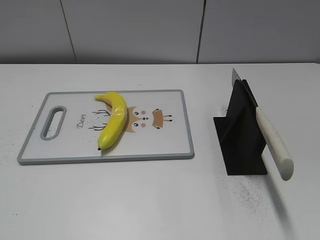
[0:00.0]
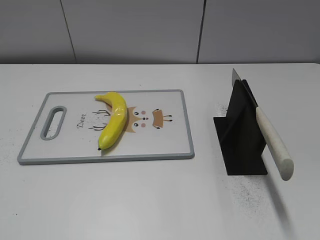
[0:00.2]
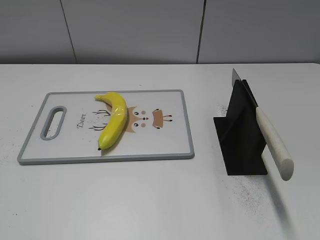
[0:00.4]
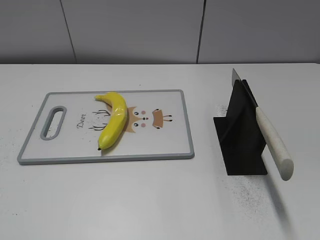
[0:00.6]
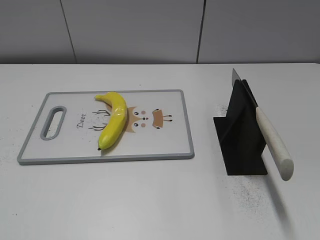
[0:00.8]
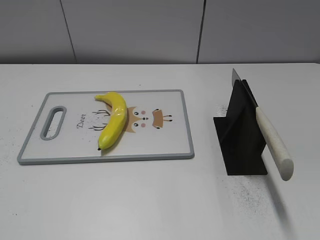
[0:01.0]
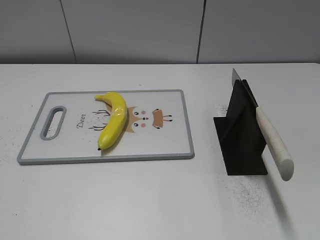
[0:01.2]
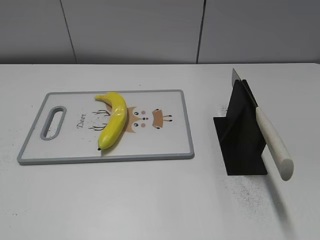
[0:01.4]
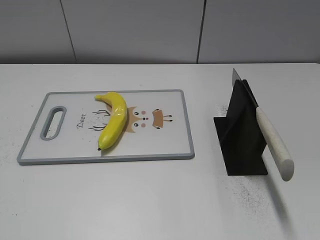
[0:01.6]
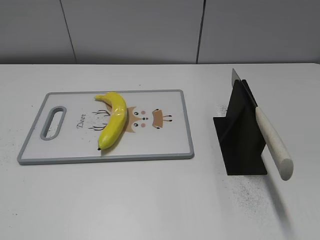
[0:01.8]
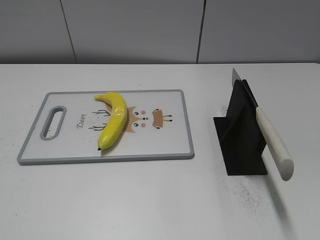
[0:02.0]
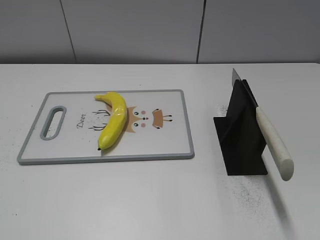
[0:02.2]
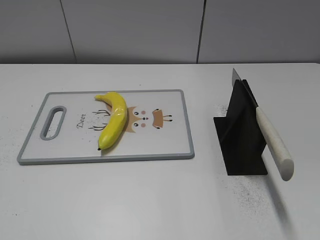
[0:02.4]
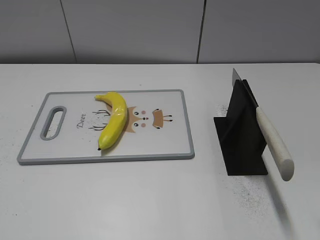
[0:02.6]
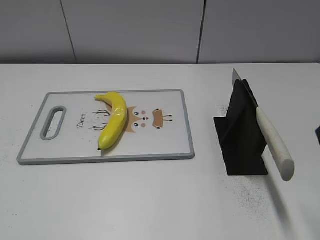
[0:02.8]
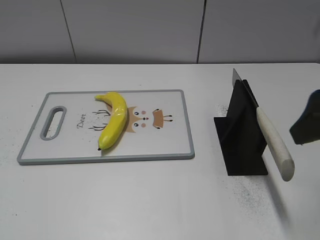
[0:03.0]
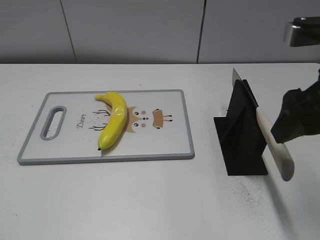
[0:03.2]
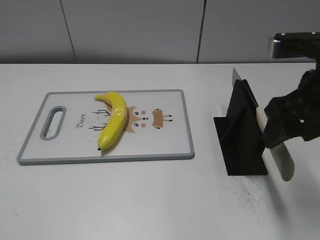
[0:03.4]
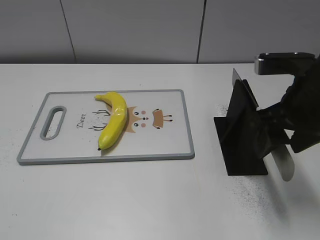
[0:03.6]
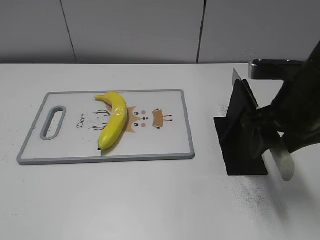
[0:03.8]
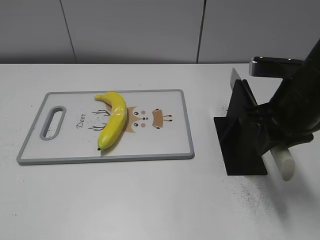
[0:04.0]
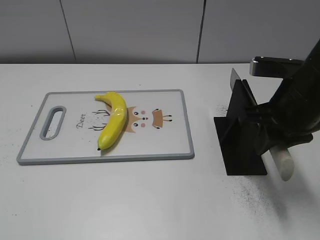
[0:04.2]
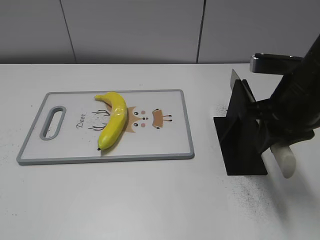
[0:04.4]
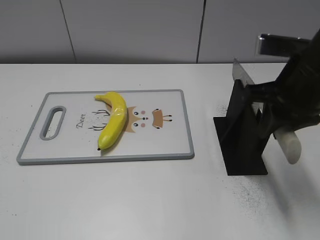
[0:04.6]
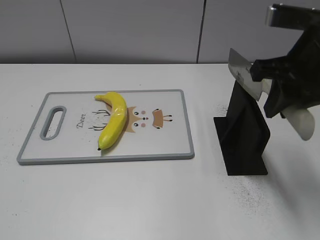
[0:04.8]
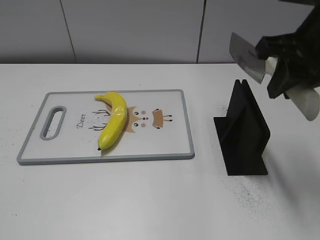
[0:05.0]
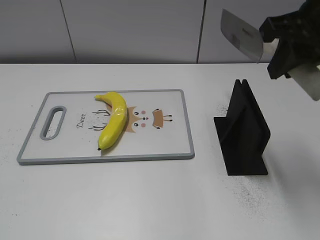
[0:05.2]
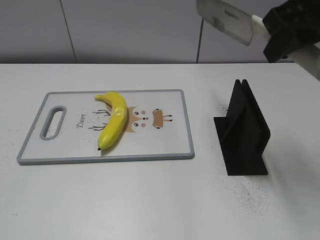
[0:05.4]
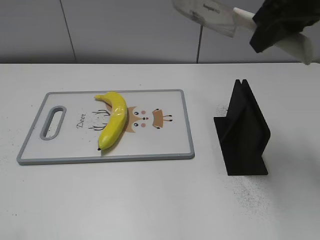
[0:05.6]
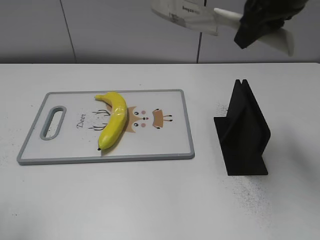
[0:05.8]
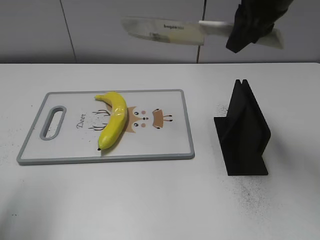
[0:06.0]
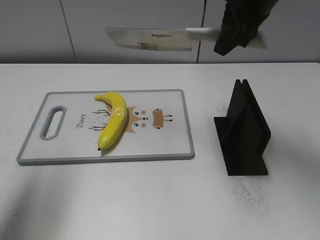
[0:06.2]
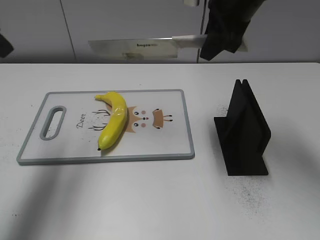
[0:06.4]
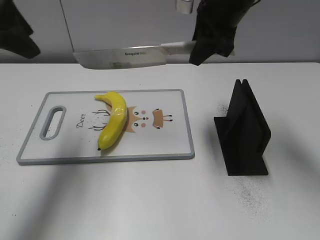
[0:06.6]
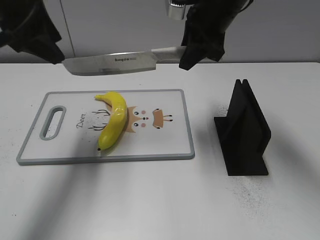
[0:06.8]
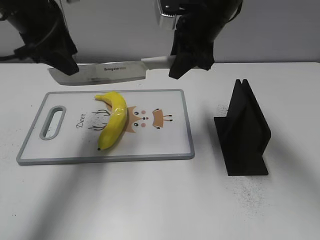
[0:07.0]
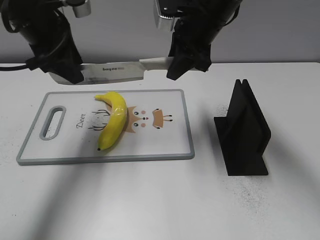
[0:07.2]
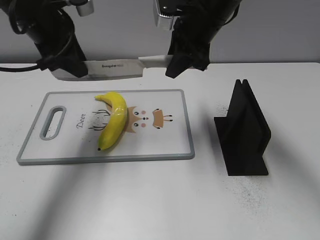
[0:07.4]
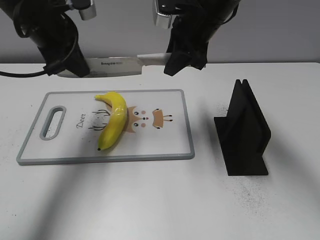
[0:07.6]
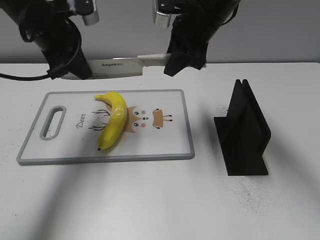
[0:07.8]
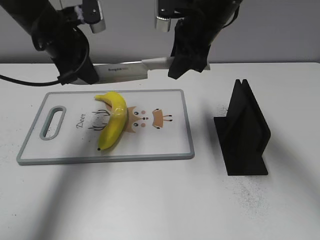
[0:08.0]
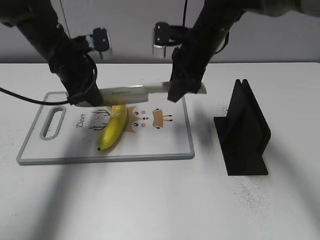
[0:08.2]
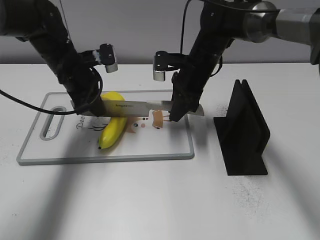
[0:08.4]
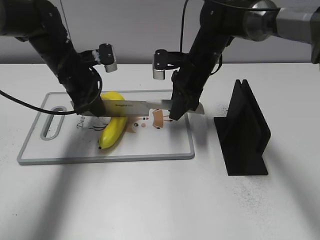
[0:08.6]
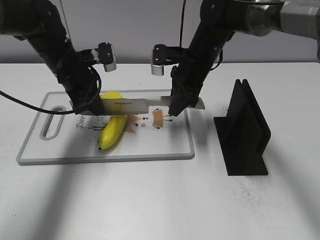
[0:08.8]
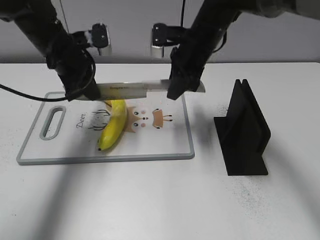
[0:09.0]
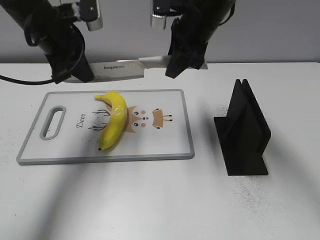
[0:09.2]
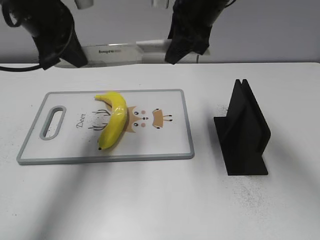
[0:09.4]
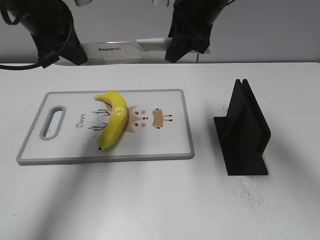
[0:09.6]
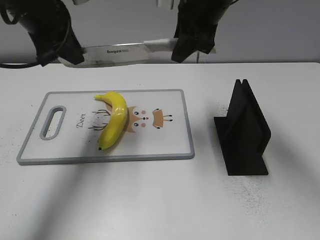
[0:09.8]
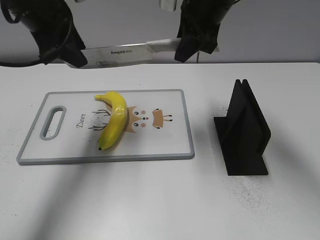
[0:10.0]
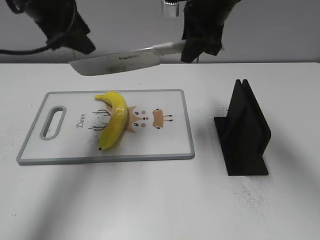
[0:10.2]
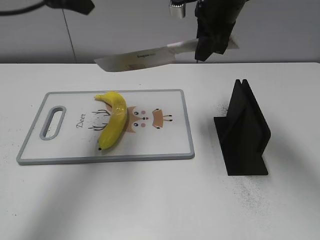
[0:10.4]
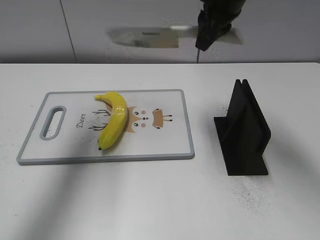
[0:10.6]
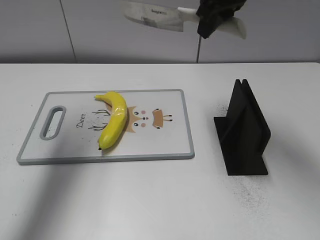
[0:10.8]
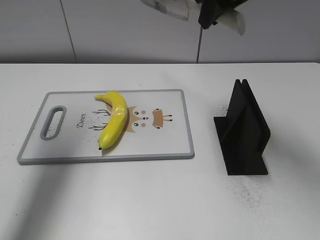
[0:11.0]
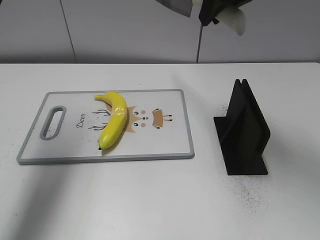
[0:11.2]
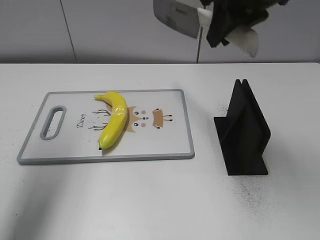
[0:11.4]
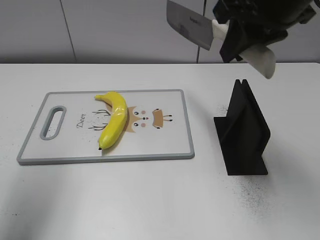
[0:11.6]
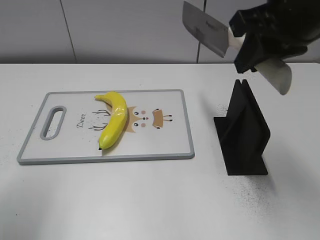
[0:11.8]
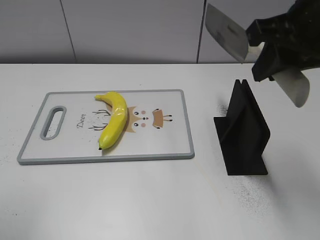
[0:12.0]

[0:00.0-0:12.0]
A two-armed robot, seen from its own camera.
Task of the whole recording: cut plastic banana.
Step, 0:00.0 to 0:05.0: Grab the knife handle with your right hand.
Step, 0:05.2 to 0:09.6: Lift the knife with your right hand.
Step, 0:09.8 to 0:10.4: Cut the banana with your right hand.
Step, 0:10.6 to 0:11.6: Lift the knife with your right hand.
0:01.6 to 0:03.0: The right gripper moves forward, about 20 cm.
0:03.0 to 0:04.4: The right gripper is displaced downward and forward by approximately 10 cm, and closes up.
0:04.4 to 0:06.0: The right gripper travels upward and forward by roughly 15 cm. Meanwhile the left gripper goes approximately 15 cm forward.
0:06.0 to 0:07.6: The right gripper goes roughly 15 cm downward, to the left and forward. Meanwhile the left gripper travels forward and to the right by some 25 cm, and closes its fingers.
0:07.6 to 0:09.0: The grippers both shift downward by about 5 cm.
0:09.0 to 0:10.4: The right gripper travels upward by some 10 cm; the left gripper is displaced upward by approximately 15 cm, and opens its fingers.
0:10.4 to 0:12.0: The left gripper shifts roughly 25 cm backward and to the left, while the right gripper is displaced backward and to the right by roughly 20 cm.

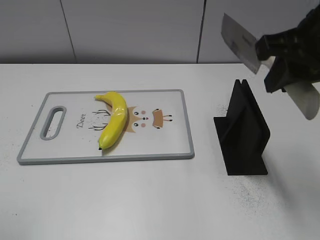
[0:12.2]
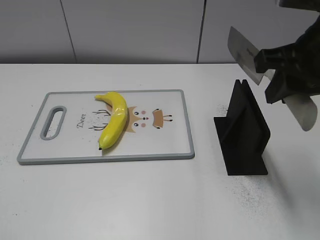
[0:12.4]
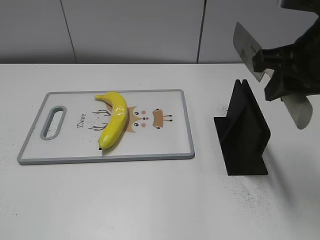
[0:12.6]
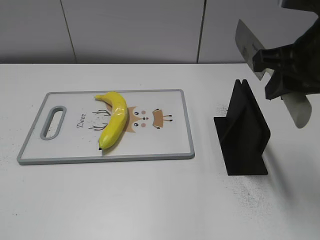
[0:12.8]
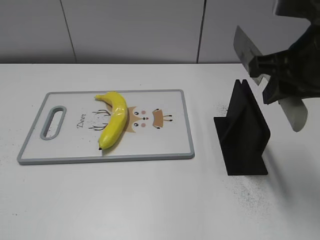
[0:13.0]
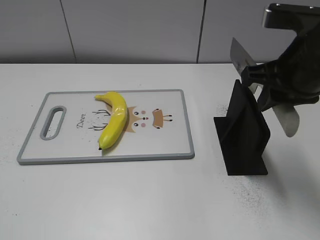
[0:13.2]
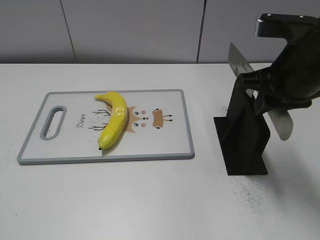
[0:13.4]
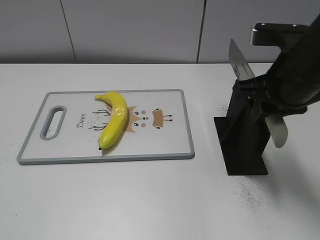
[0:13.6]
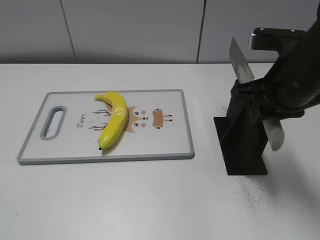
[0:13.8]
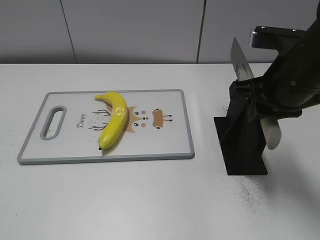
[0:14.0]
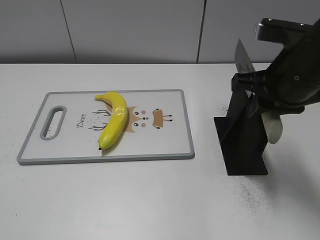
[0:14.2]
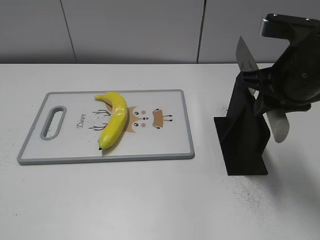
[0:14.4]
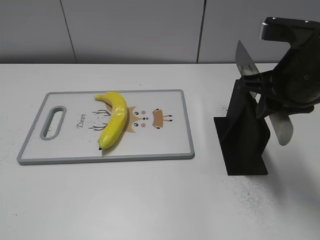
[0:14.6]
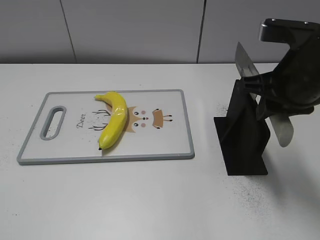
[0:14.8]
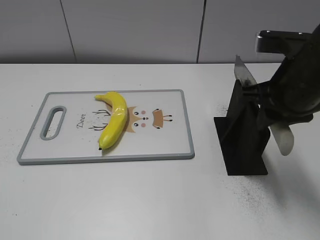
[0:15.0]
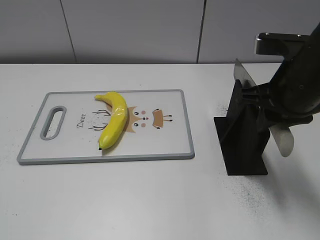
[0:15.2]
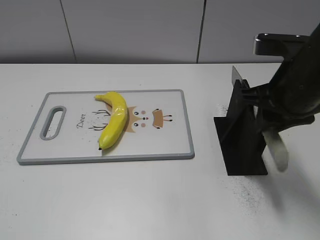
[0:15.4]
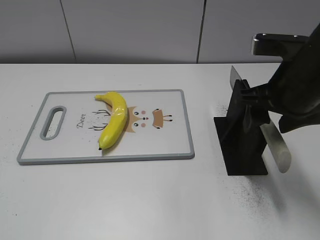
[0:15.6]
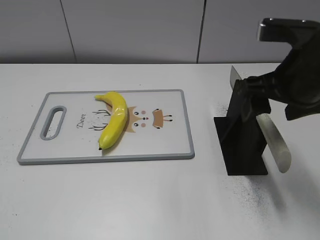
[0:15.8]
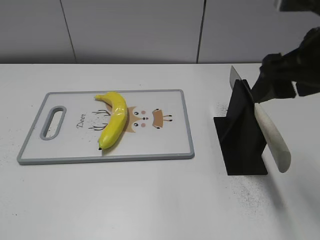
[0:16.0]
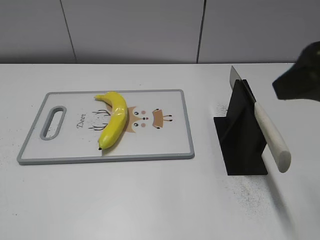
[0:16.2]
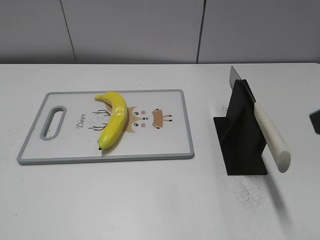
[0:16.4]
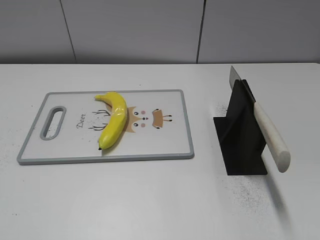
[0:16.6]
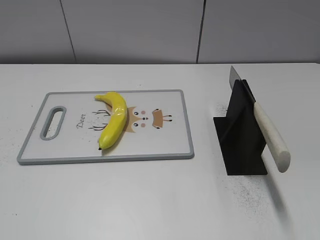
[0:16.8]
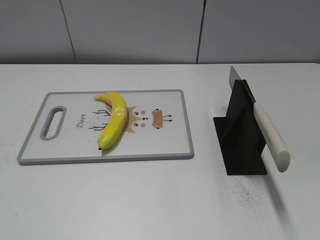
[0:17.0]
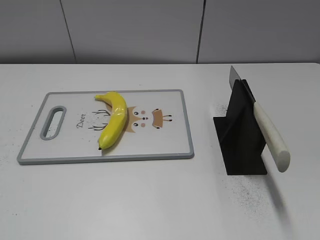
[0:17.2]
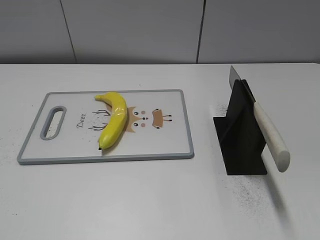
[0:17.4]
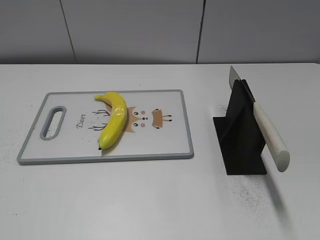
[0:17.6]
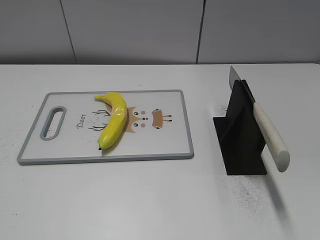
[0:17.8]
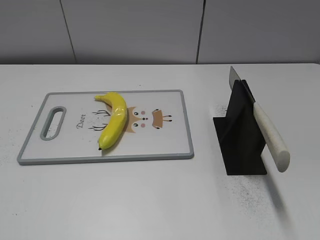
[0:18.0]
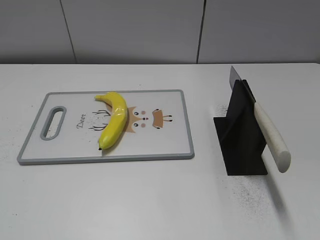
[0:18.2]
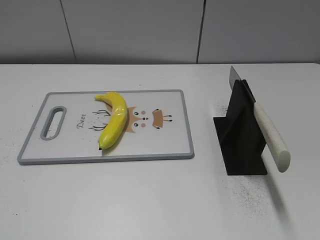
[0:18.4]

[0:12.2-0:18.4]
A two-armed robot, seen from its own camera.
Task of the whole recording: cut plastic banana.
Step, 0:12.2 to 0:18.4: Place the knife on the storage rack with your right hand.
0:12.2 to 0:13.8: The right gripper travels downward by approximately 10 cm.
0:13.8 to 0:15.4: The grippers make only small movements.
0:15.4 to 0:16.8: The right gripper moves backward and to the right, about 20 cm, and opens.

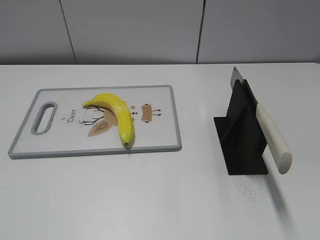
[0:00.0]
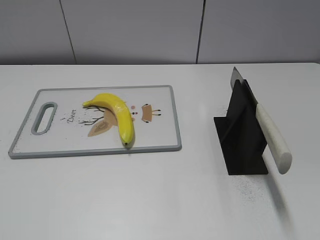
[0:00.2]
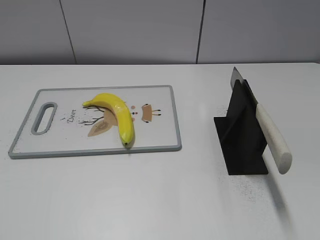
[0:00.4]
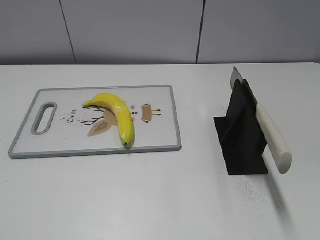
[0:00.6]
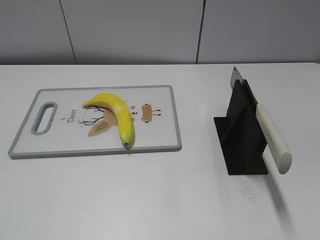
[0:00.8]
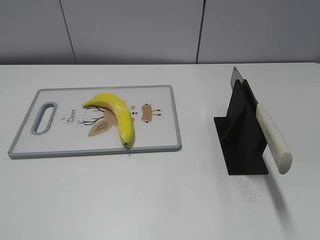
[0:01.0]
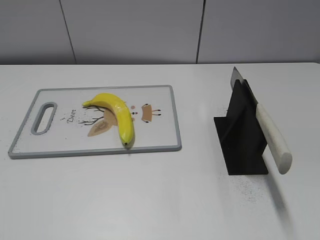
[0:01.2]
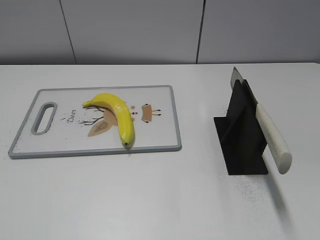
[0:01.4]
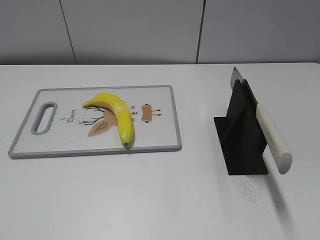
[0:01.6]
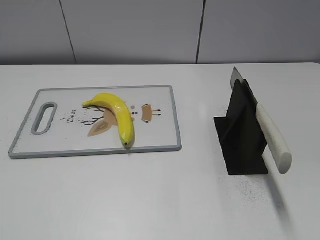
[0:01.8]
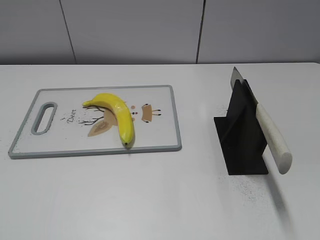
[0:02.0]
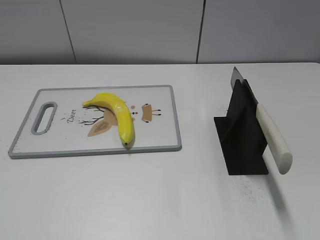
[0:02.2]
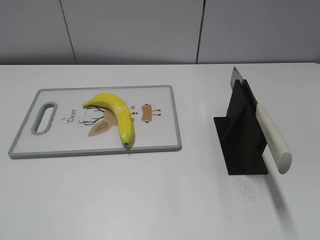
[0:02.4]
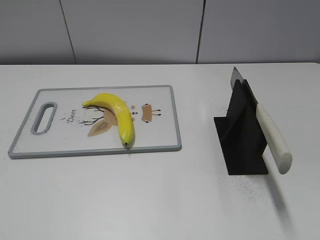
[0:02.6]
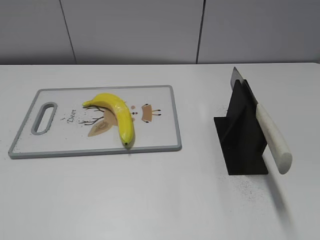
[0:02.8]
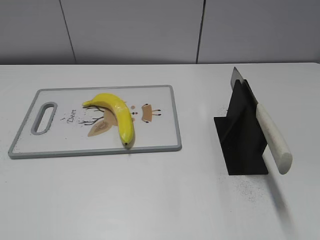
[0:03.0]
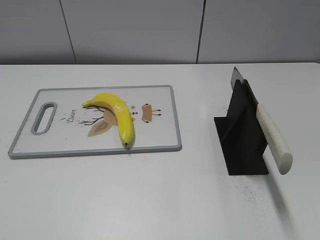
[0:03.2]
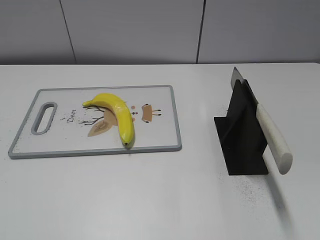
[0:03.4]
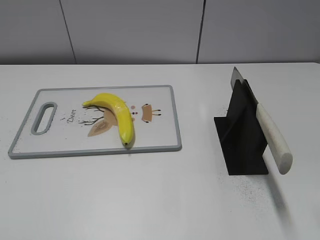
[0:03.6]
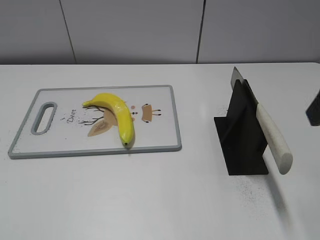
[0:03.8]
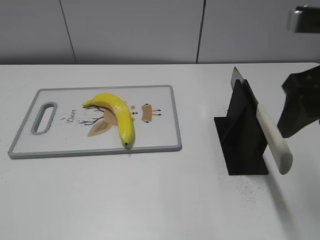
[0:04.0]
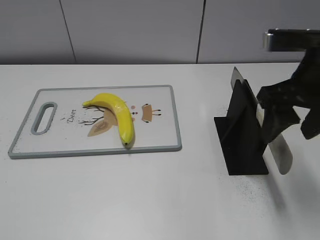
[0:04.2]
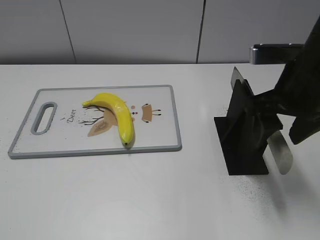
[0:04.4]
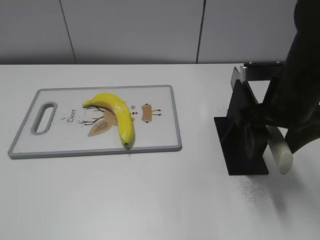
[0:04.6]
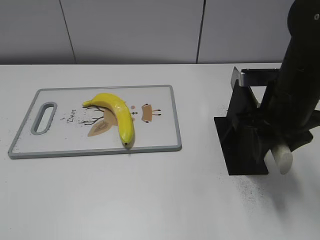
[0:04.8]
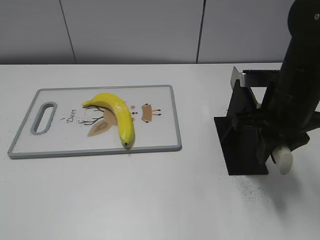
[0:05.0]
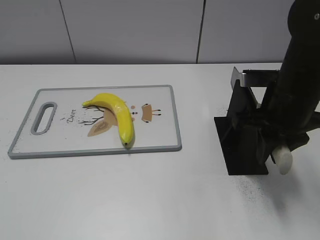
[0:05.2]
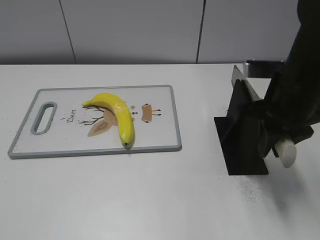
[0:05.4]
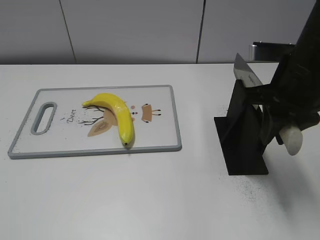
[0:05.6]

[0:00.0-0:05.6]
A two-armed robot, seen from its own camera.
Task of the whole recording: cut plastic banana.
0:02.8 to 0:04.2: The right gripper is displaced forward and to the left by roughly 25 cm.
0:04.2 to 0:05.6: The right gripper closes up.